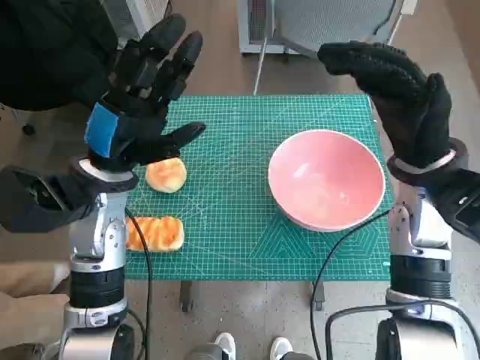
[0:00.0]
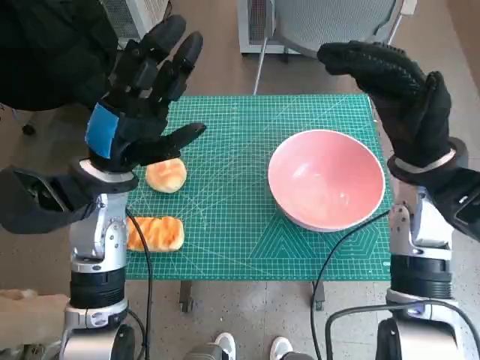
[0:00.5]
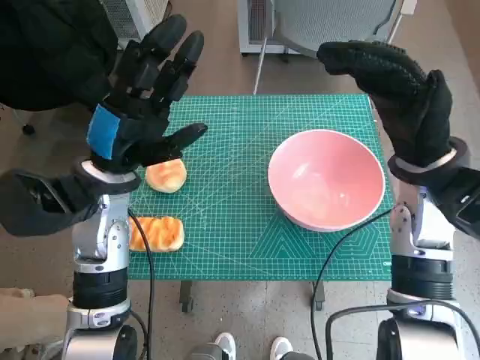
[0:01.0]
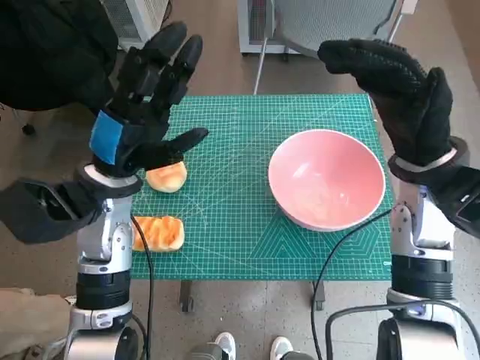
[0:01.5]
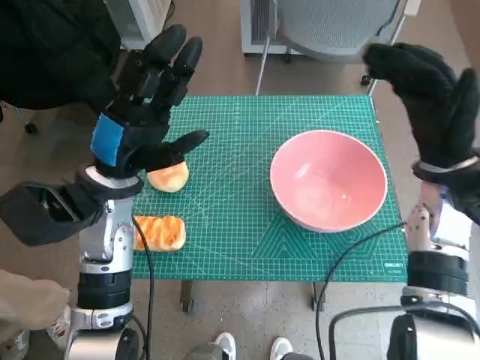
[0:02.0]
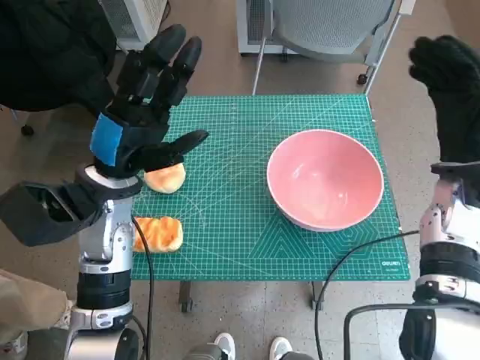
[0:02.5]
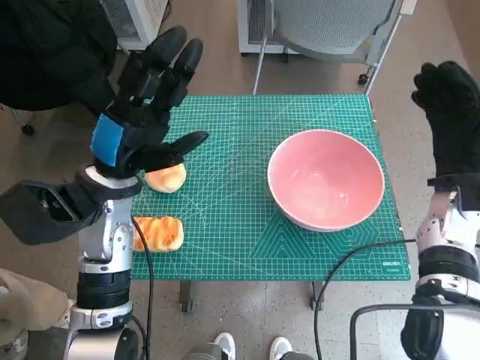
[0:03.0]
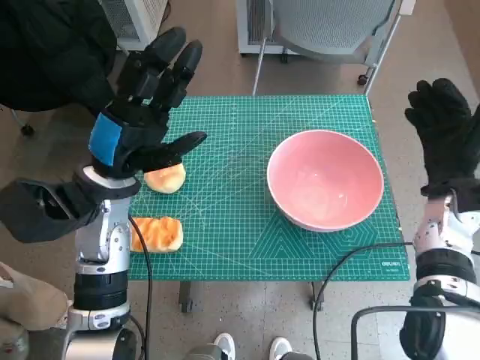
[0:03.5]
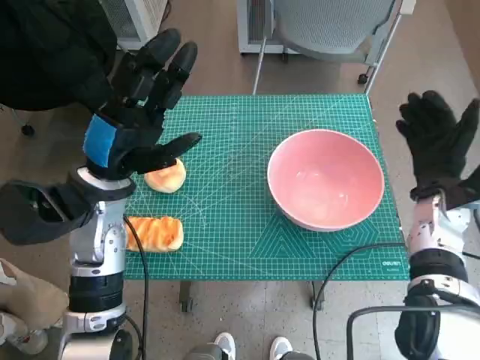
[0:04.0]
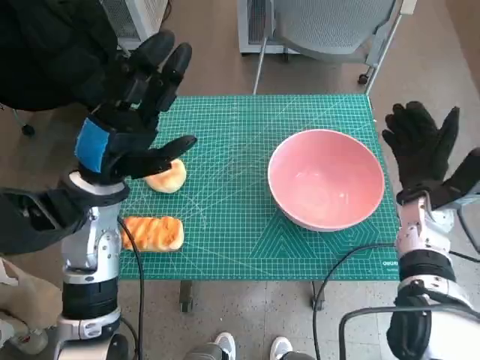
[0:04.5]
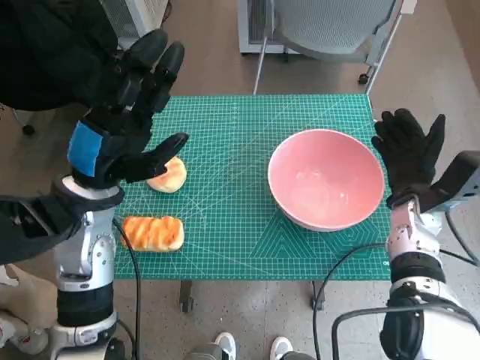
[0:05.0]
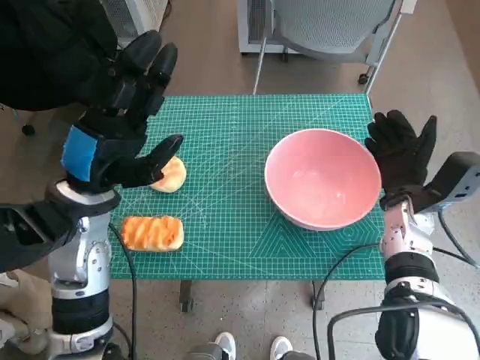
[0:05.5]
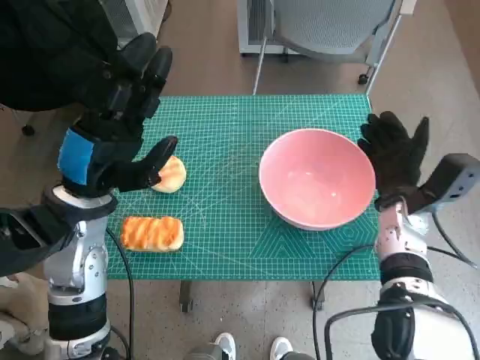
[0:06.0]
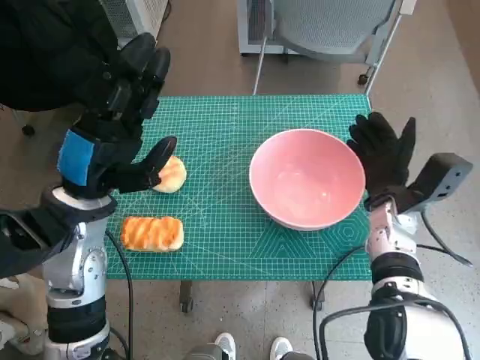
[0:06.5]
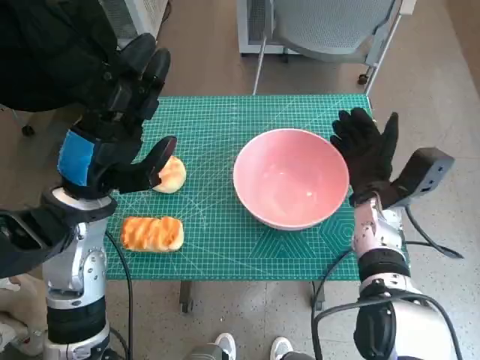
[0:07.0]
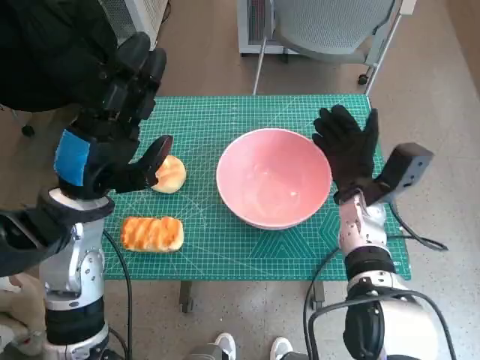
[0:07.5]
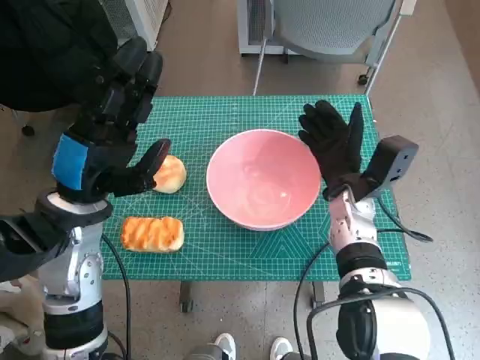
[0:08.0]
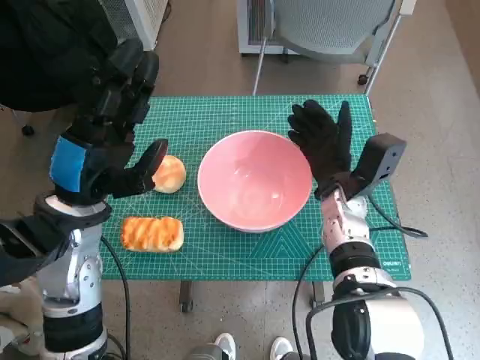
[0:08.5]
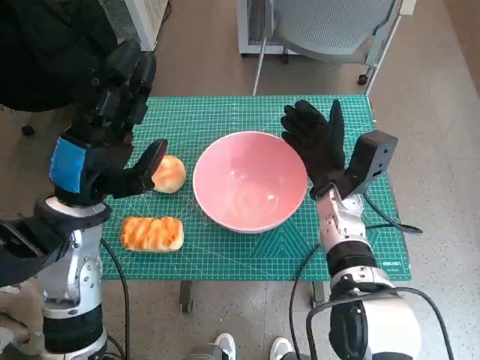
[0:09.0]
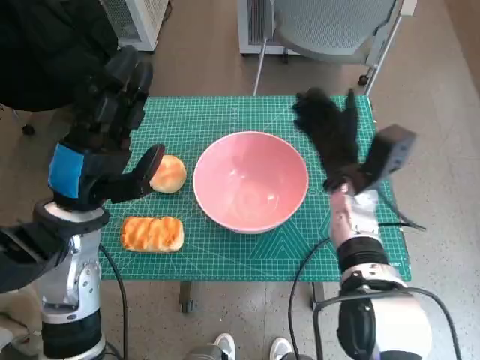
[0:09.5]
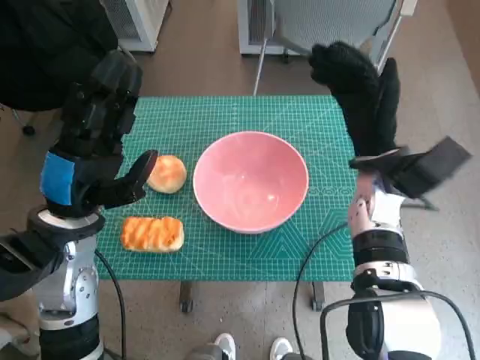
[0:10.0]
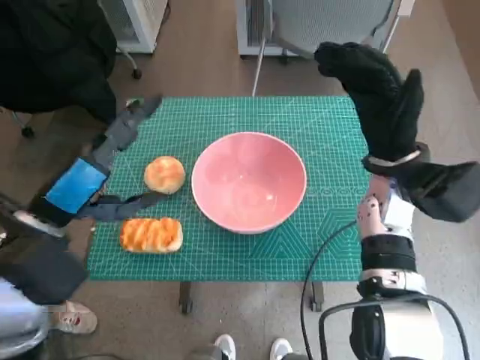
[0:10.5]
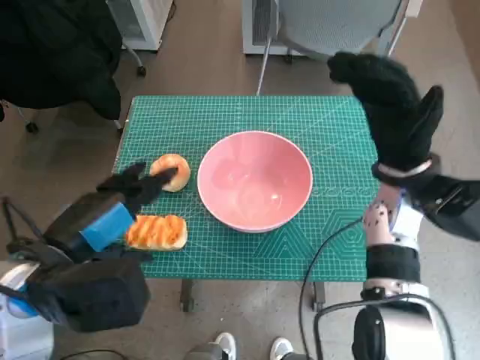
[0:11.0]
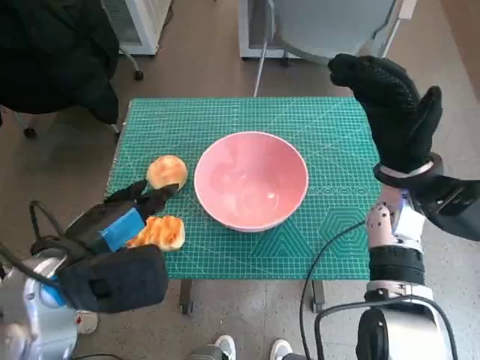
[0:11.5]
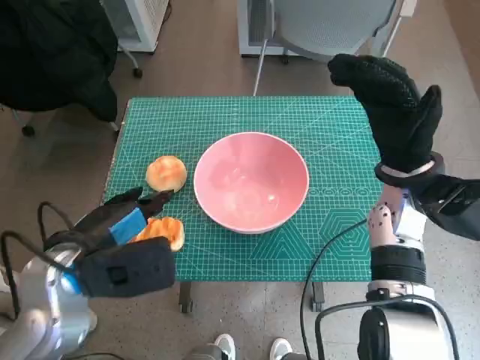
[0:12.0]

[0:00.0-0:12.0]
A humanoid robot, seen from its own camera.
Step, 0:00.0 to 0:09.0: Move the pink bowl to the center of table with right hand.
0:02.0 to 0:04.0: The right hand shifts about 10 cm downward.
0:04.0 to 0:06.0: The right hand changes place by roughly 5 cm.
0:06.0 to 0:08.0: The right hand heads to the left, covering approximately 5 cm.
0:08.0 to 0:10.0: The right hand travels upward by some 5 cm.

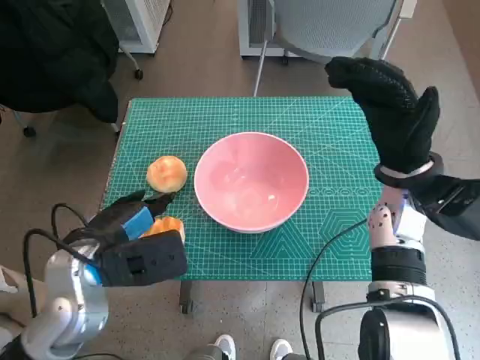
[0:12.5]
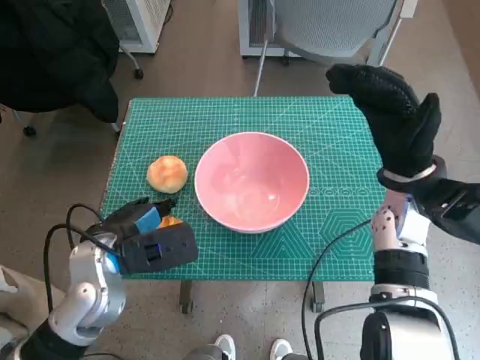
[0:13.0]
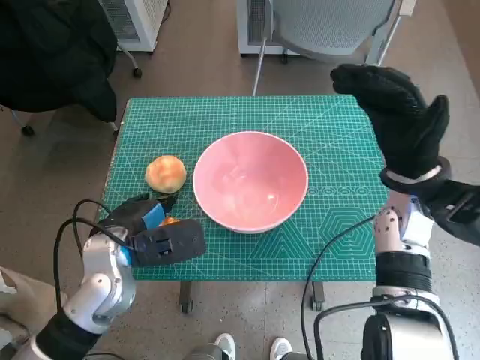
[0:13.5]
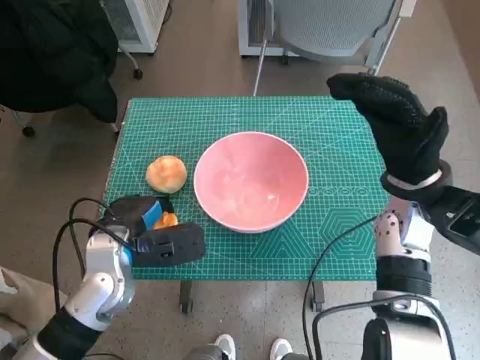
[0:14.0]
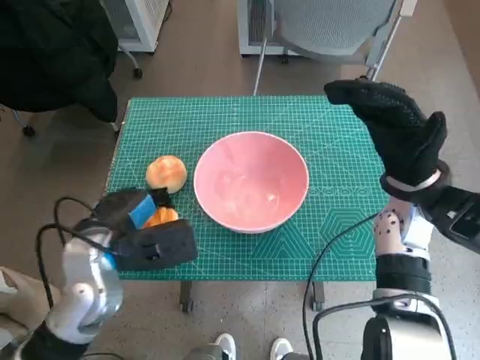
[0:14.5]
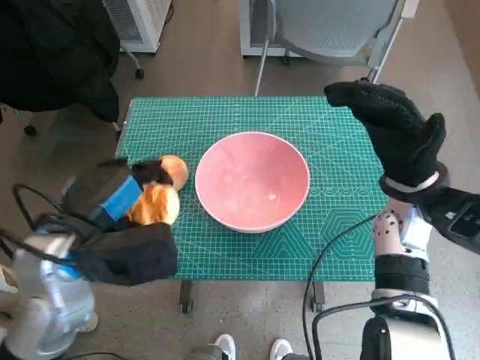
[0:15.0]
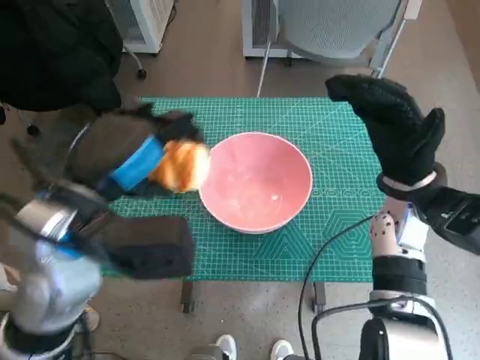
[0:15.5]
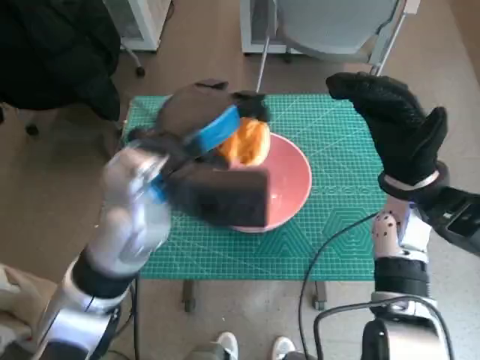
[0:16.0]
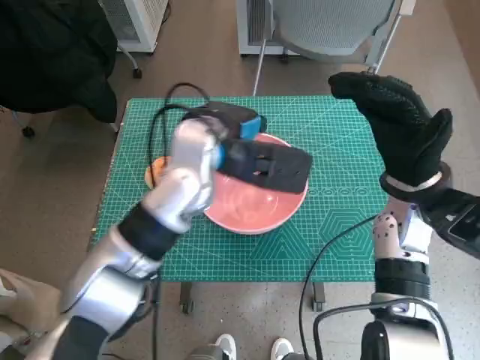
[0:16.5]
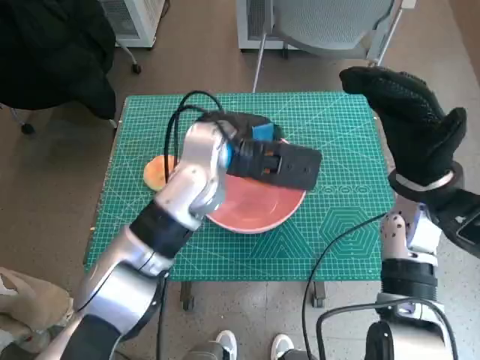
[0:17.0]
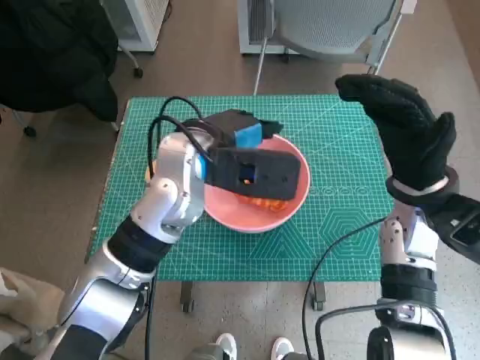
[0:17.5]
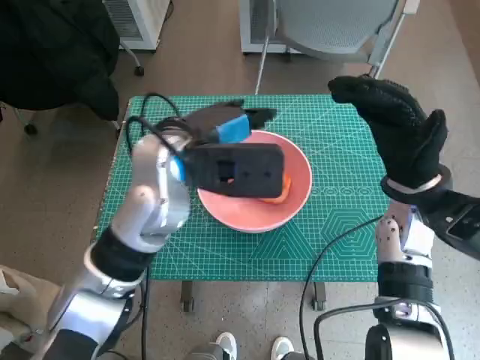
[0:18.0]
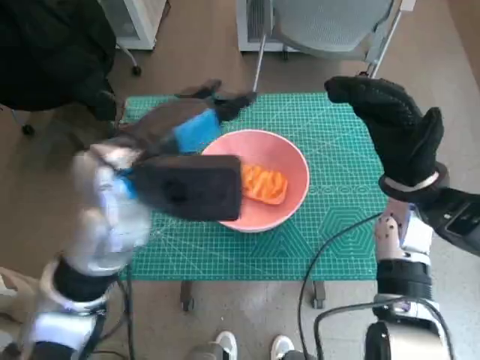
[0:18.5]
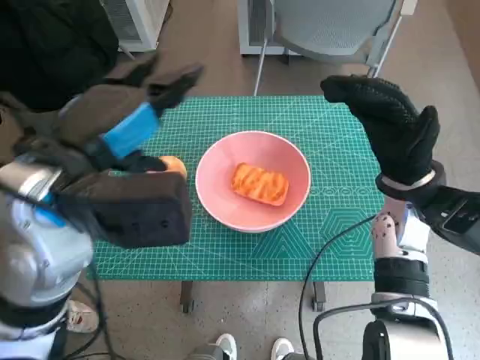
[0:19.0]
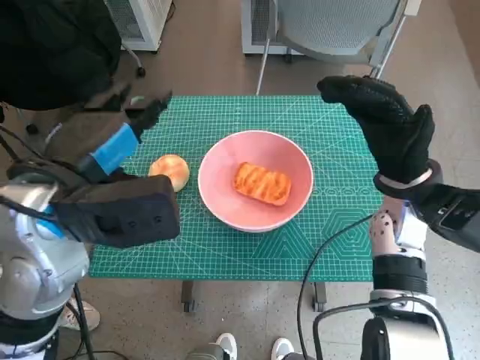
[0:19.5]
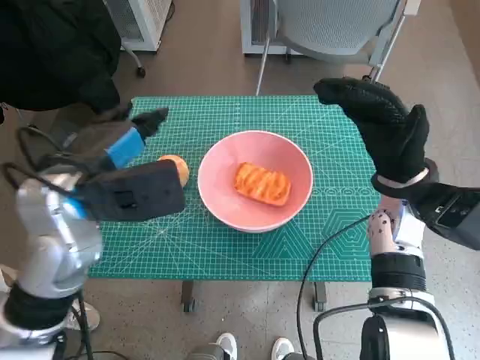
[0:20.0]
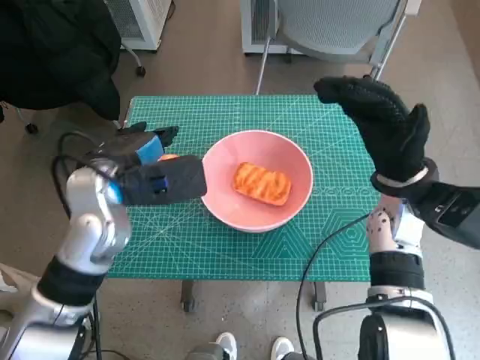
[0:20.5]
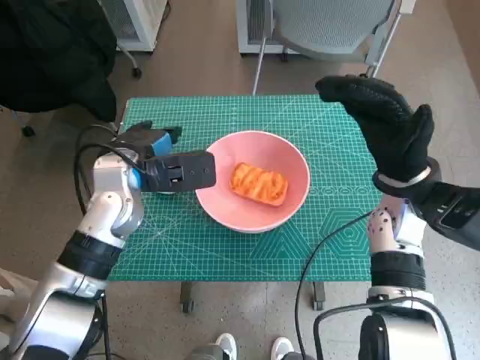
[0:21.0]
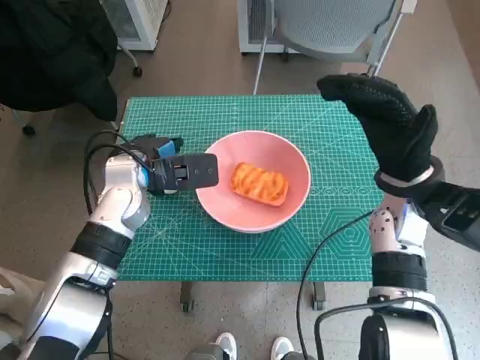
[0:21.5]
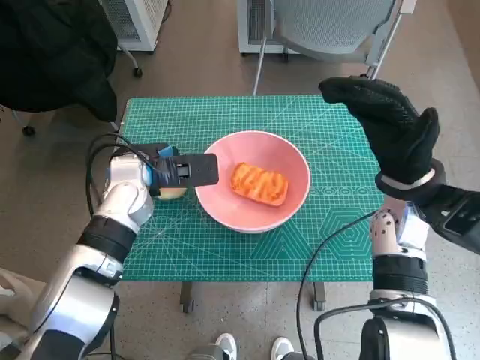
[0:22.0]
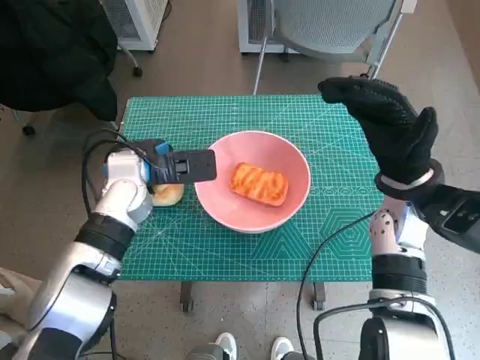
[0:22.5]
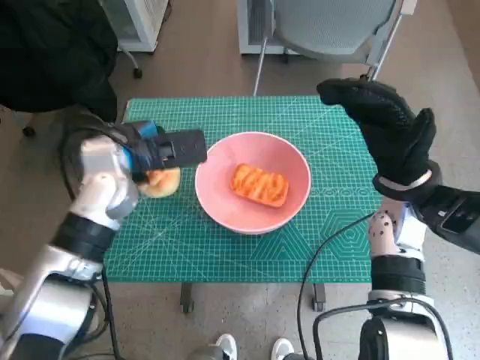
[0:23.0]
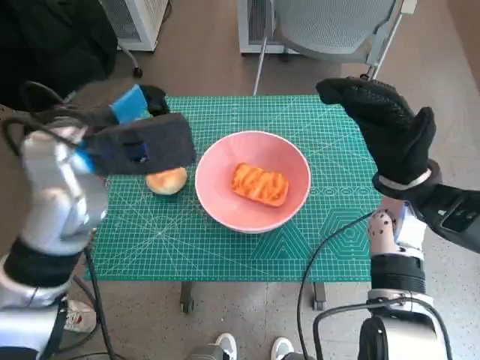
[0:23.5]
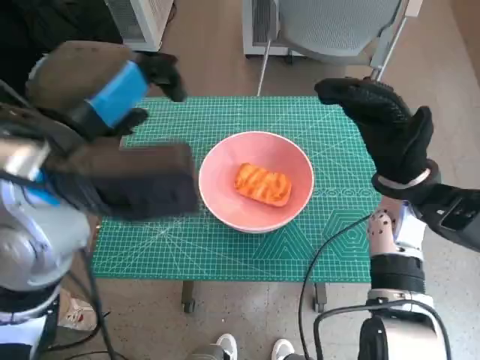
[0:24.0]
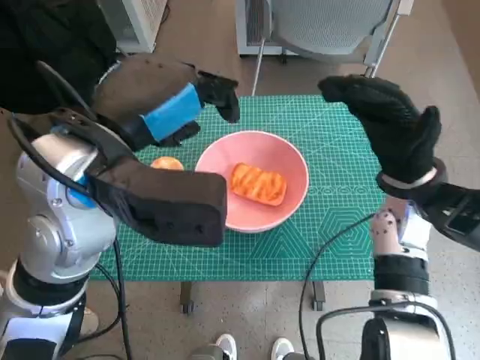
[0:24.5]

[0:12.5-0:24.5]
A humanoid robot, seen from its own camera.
Step, 0:14.0 to 0:17.0: Place the long bread in pink bowl with left hand.
0:12.5 to 0:14.5: There are only small adjustments of the hands.
0:14.5 to 0:16.5: The left hand shifts approximately 20 cm to the right, forward and upward.
0:16.5 to 0:18.5: The left hand travels to the left and backward by about 10 cm.
0:18.5 to 0:20.5: The left hand moves to the left and downward, about 10 cm.
0:20.5 to 0:22.5: The left hand goes some 10 cm forward and downward.
0:22.5 to 0:24.5: The left hand shifts roughly 20 cm upward and backward.

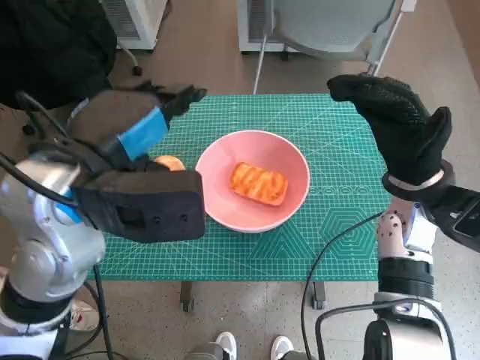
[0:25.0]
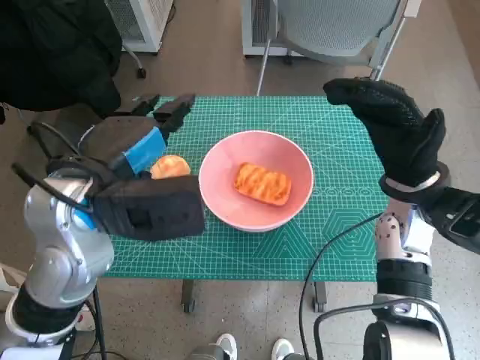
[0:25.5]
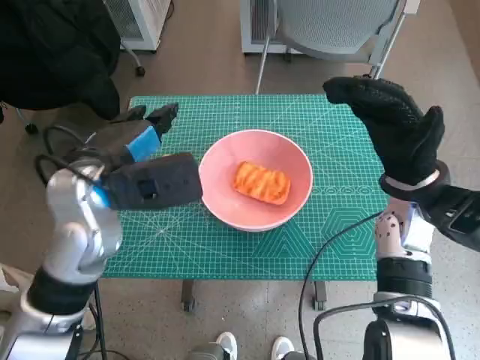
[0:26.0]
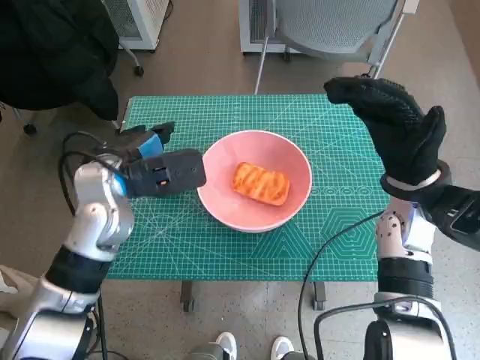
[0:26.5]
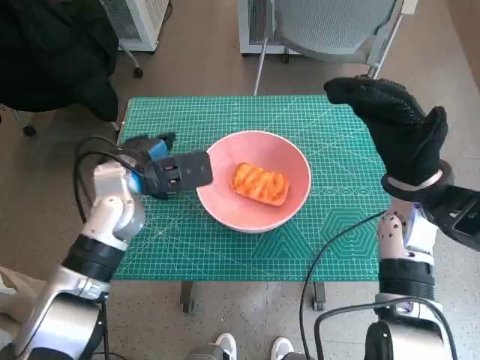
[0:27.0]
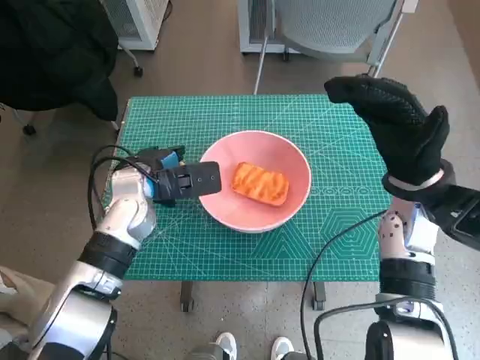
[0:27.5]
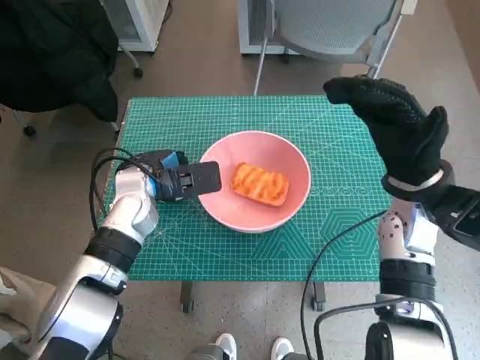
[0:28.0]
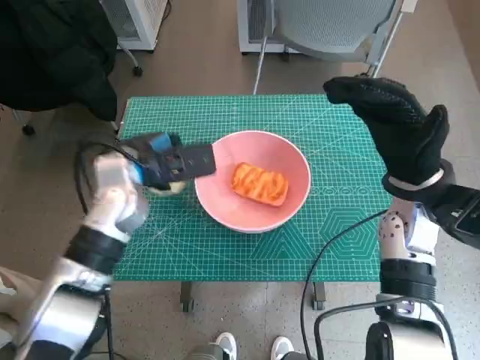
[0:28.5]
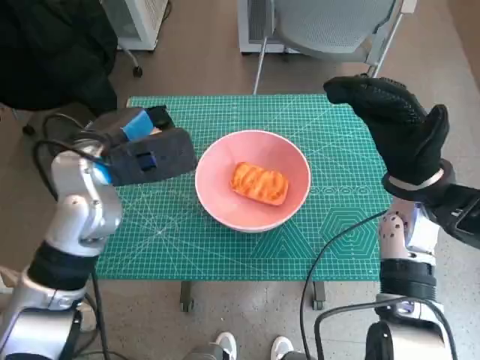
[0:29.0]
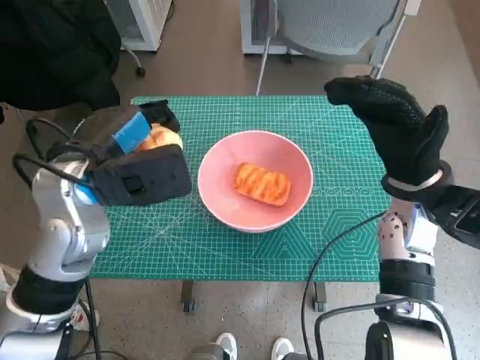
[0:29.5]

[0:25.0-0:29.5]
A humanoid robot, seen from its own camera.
Step, 0:25.0 to 0:28.0: Grasp the round bread with left hand.
0:25.0 to 0:27.0: The left hand shifts roughly 15 cm downward and forward.
0:27.0 to 0:29.5: The left hand heads upward and backward, covering some 10 cm.
